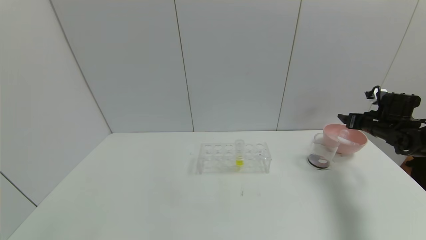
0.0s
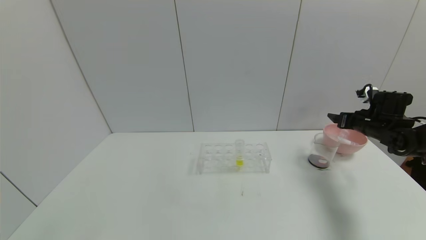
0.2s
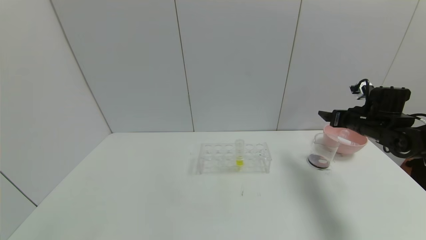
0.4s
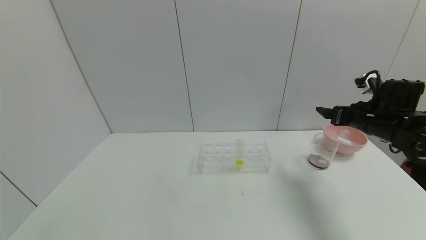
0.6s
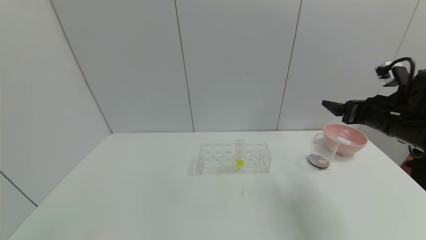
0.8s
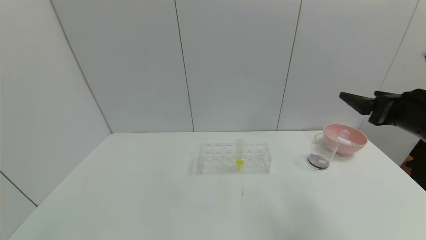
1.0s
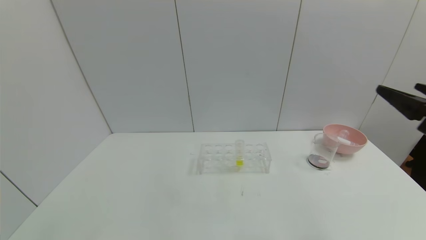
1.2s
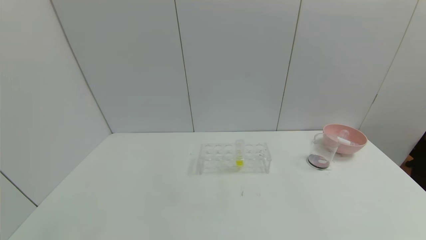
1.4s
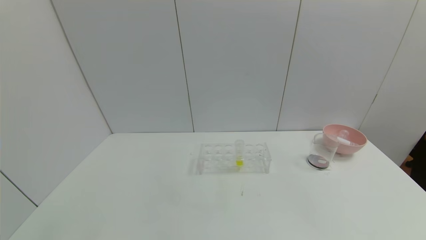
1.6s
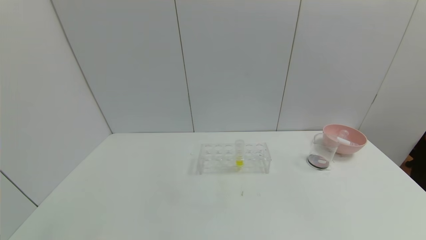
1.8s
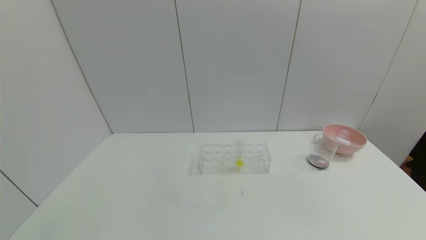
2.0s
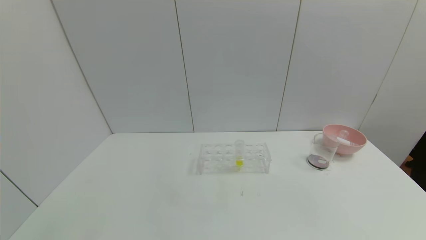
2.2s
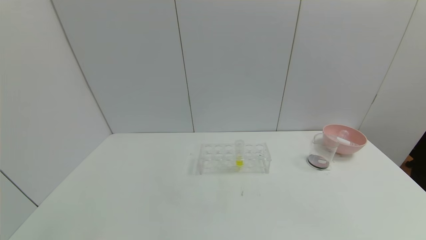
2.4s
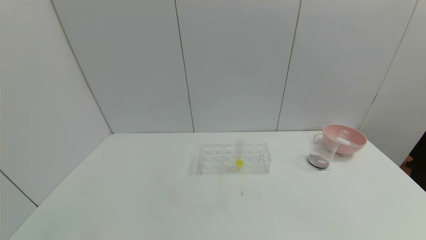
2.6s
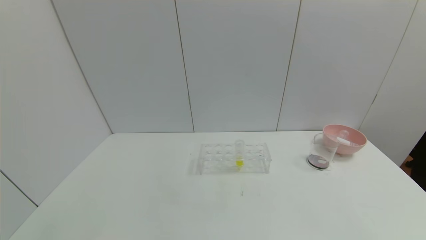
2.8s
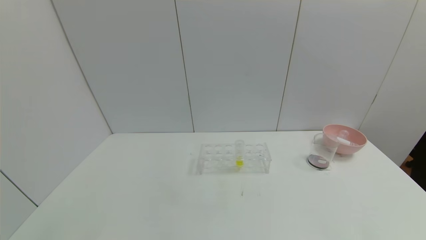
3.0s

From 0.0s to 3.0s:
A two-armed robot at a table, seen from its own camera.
Task of the whole recording: pick up the test tube with red pigment and the test tube with blue pigment by grippers and pour them into the container.
From 0.0s to 1.6s: The right gripper is displaced backward by about 40 cm.
